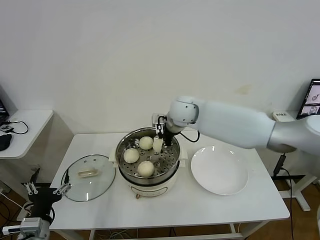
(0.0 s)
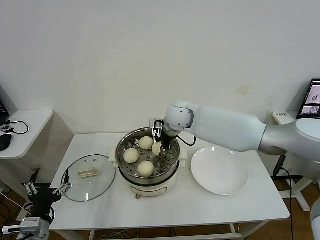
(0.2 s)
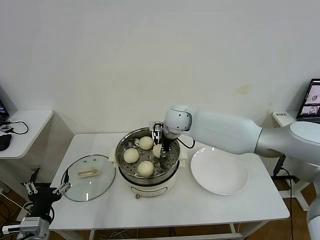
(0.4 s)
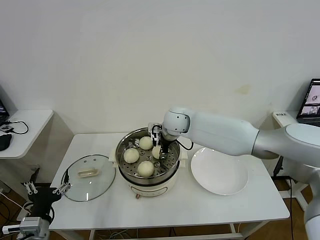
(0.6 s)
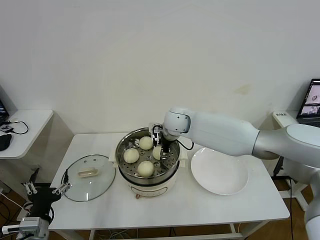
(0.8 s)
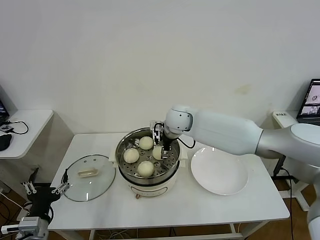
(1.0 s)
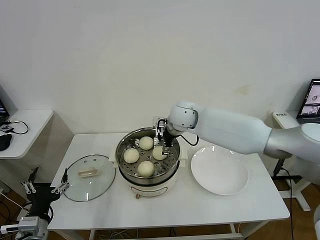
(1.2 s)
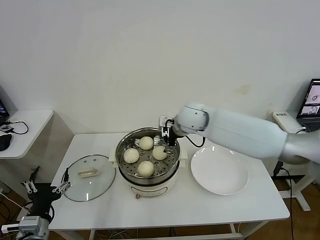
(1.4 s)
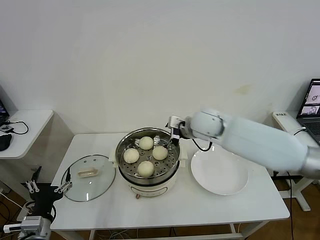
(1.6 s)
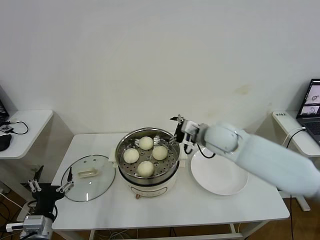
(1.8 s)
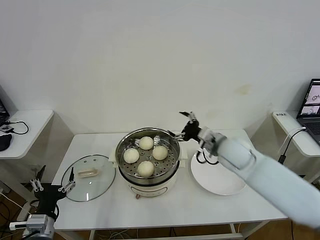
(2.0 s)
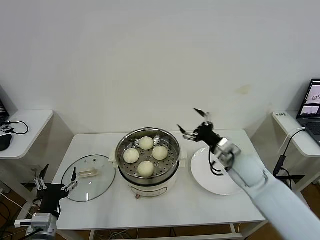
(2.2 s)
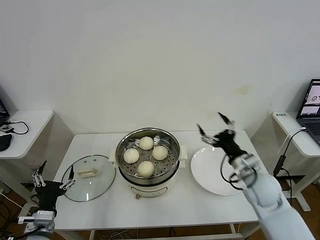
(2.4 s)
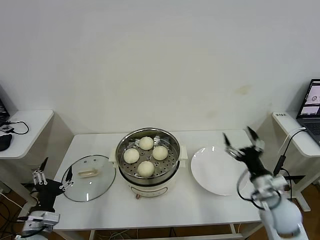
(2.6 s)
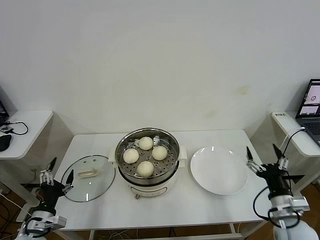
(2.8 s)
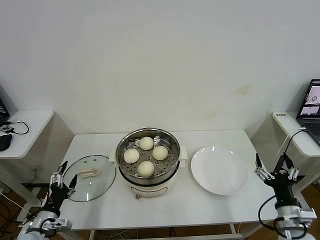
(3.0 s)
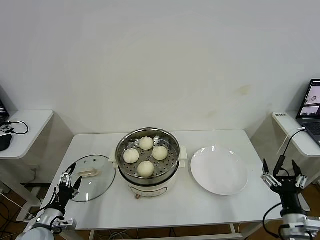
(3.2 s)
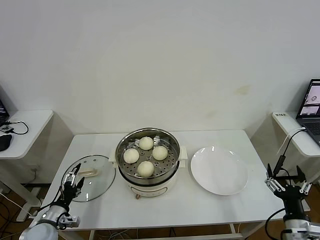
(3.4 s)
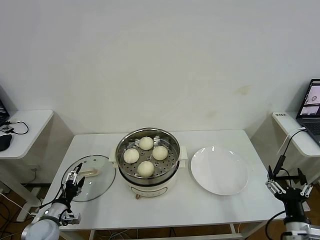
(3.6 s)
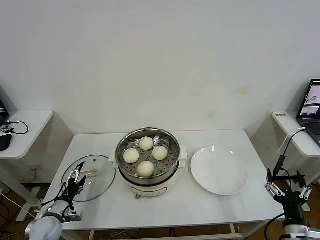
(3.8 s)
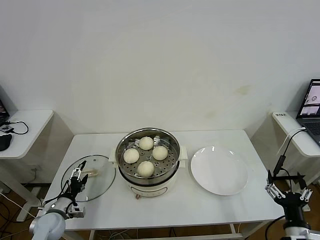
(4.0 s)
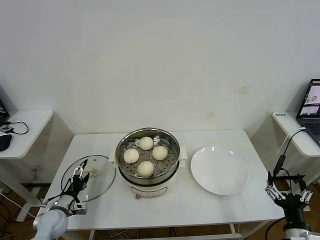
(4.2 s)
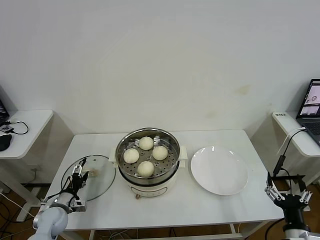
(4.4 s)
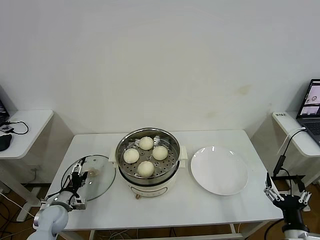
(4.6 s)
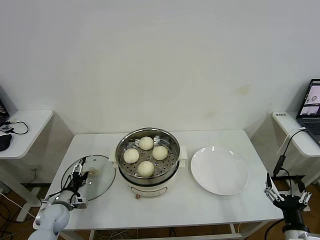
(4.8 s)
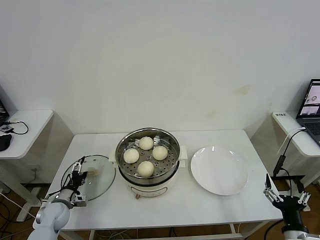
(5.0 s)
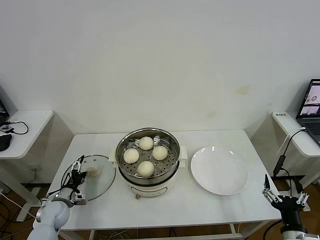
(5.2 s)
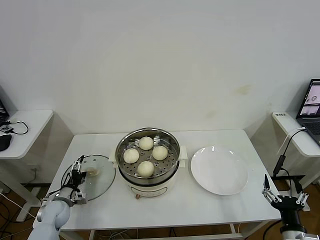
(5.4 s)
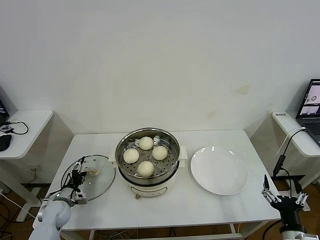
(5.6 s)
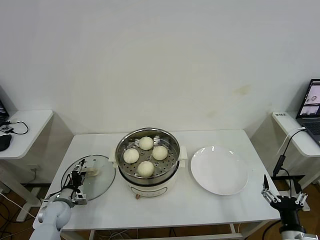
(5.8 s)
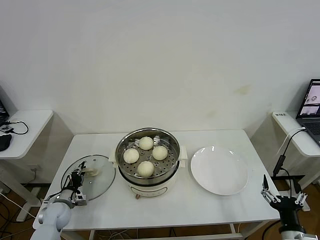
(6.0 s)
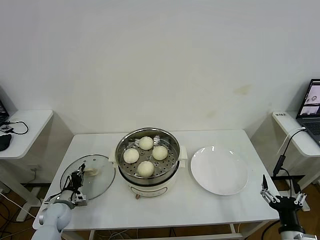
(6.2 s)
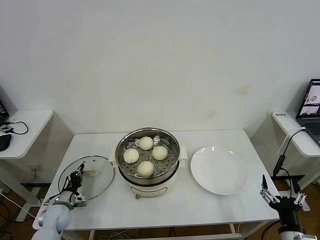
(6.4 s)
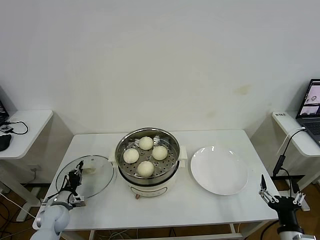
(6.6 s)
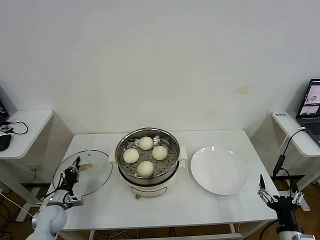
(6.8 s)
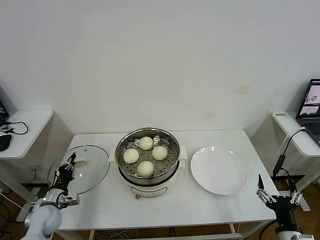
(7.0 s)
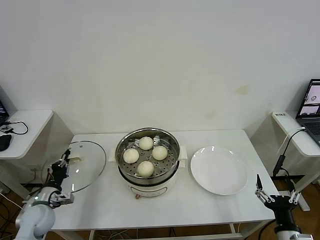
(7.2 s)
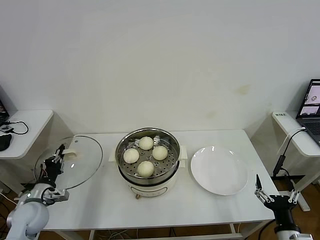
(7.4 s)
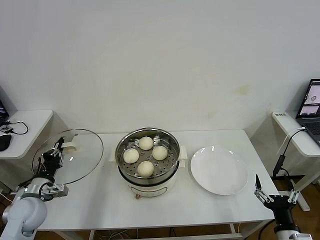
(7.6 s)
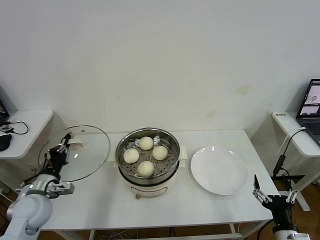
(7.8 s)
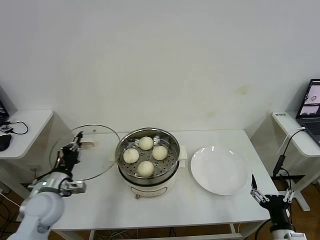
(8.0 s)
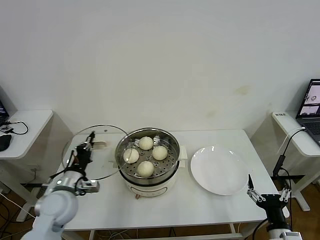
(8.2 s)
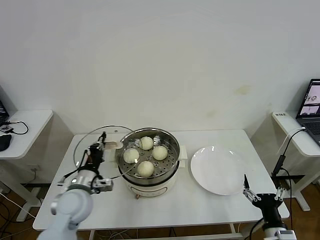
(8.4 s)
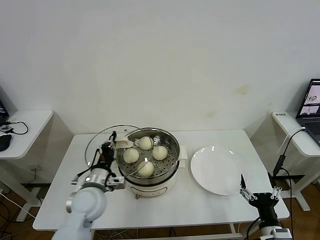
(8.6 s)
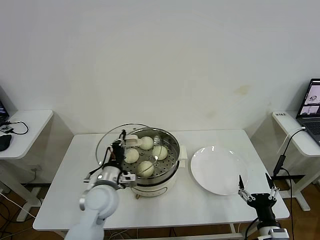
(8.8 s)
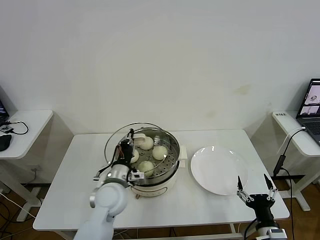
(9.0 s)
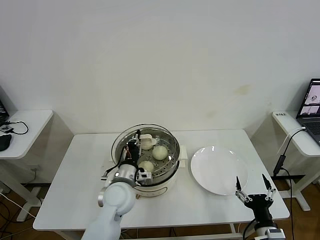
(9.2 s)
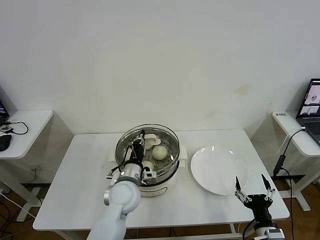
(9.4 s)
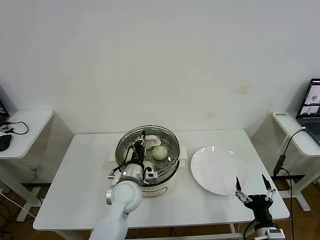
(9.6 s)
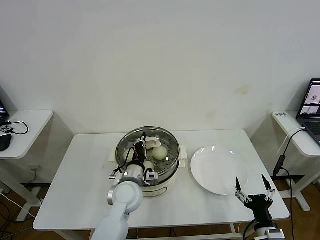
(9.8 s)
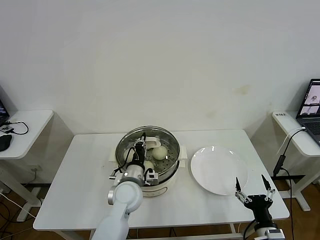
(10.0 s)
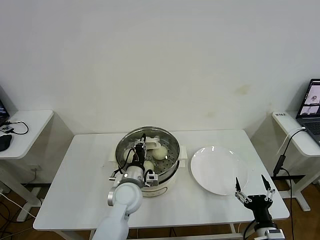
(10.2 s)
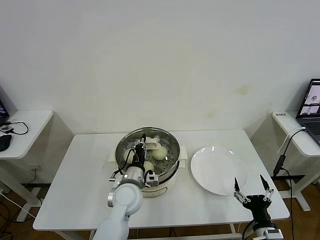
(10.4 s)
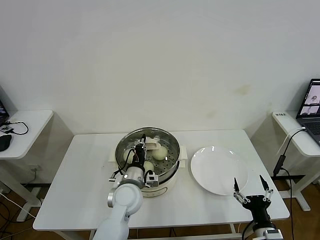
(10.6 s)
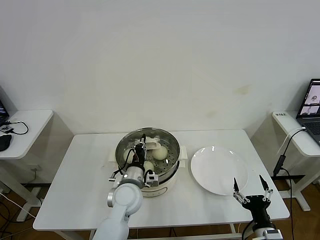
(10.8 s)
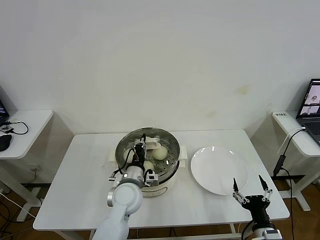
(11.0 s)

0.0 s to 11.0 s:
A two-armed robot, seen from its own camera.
Task of the whole recording: take steamed baozi put them in steamer then cover it.
Step, 1.4 to 6.2 s: Grasp the pot lid with left gripper.
0.0 to 1.6 s: The right gripper travels to the right and backward by roughly 10 cm, and opens.
1.6 to 3.2 s: The right gripper shifts roughly 40 cm backward, to the right and downward; the left gripper is displaced downward, to the left and forward by approximately 10 cm.
3.2 to 4.8 s: The left gripper heads forward and downward, covering some 10 cm.
4.8 to 6.2 s: The left gripper closes its fingers.
6.2 to 7.8 s: The left gripper is displaced upward by about 20 cm.
7.8 to 9.4 s: The left gripper moves to the right, approximately 25 cm.
9.4 to 11.0 s: The grippers move only a little.

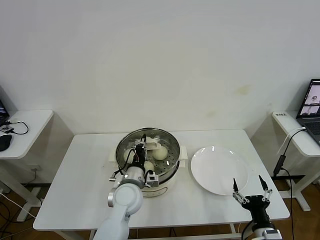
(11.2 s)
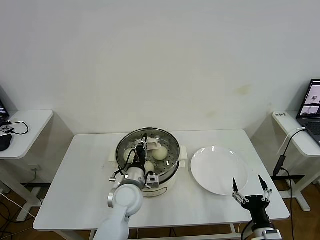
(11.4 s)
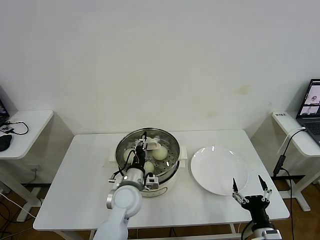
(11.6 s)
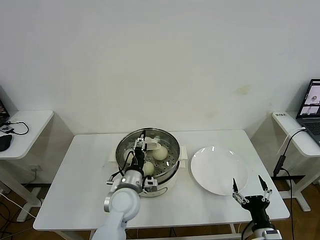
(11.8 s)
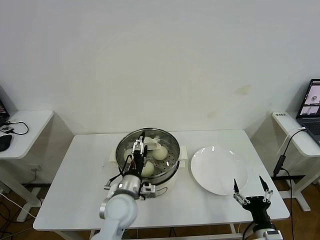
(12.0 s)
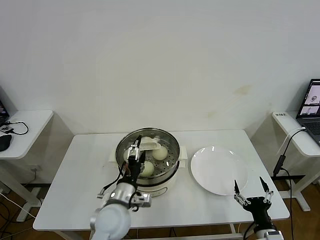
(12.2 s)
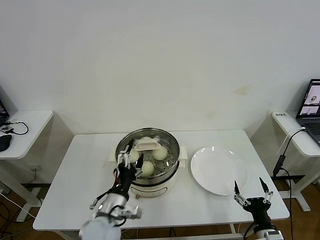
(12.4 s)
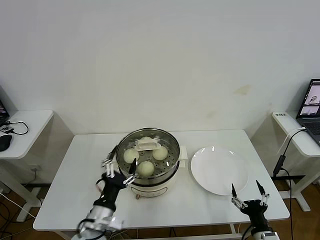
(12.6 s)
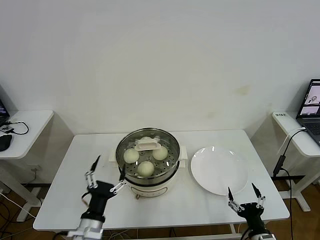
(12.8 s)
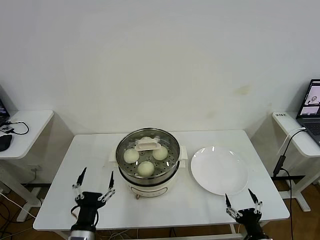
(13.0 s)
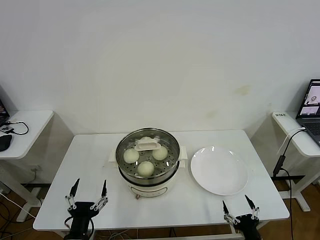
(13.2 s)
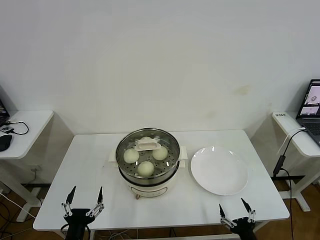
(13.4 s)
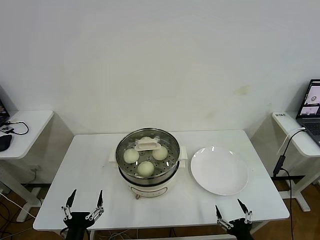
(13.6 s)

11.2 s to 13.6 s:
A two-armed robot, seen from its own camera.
Task of the whole recording: take steamed baozi put them in steamer then cover it.
11.2 to 12.4 s: The left gripper travels backward by roughly 10 cm, and opens.
12.4 to 13.6 s: The right gripper ends up some 5 cm from where it was. Meanwhile the left gripper heads backward, to the left and downward, covering roughly 20 cm.
